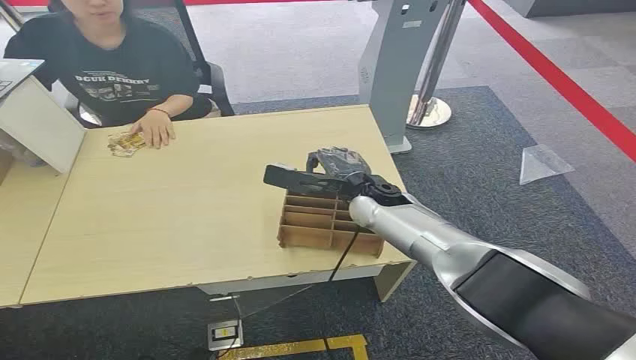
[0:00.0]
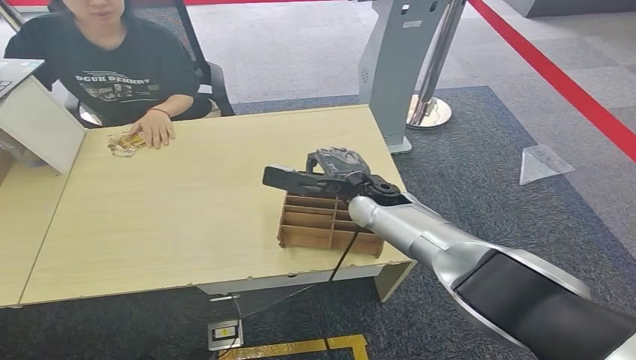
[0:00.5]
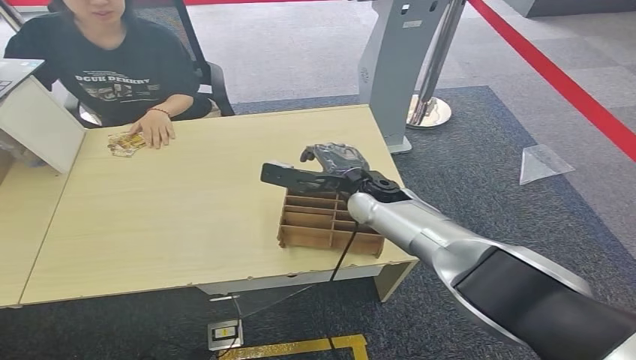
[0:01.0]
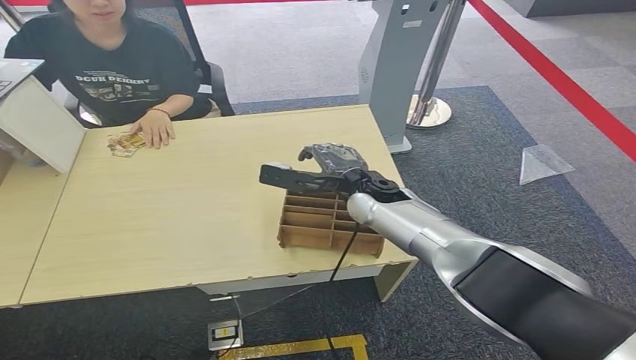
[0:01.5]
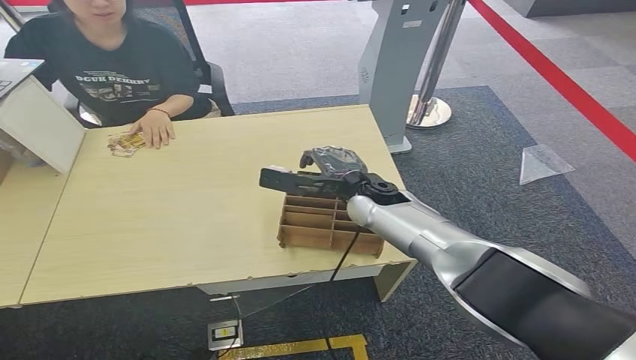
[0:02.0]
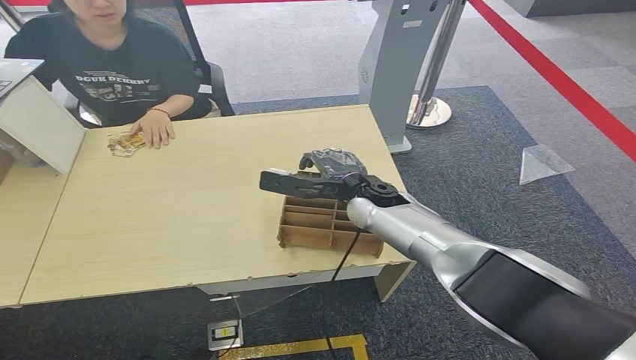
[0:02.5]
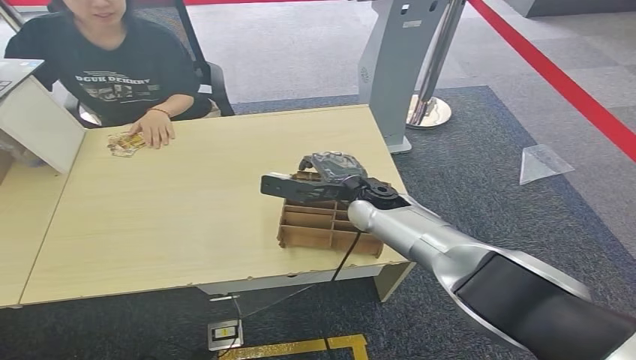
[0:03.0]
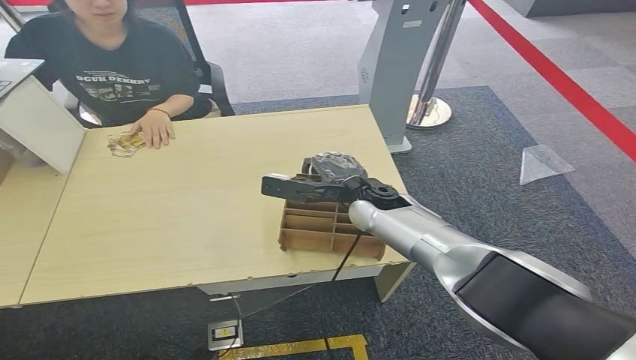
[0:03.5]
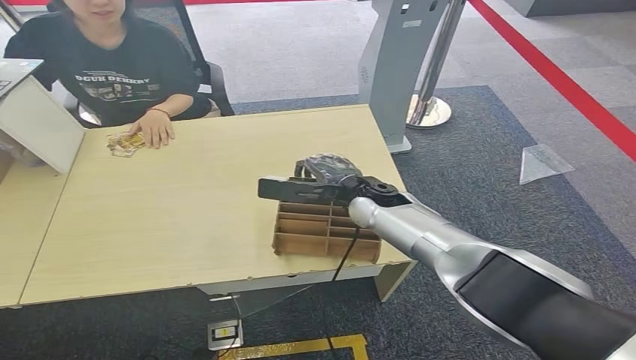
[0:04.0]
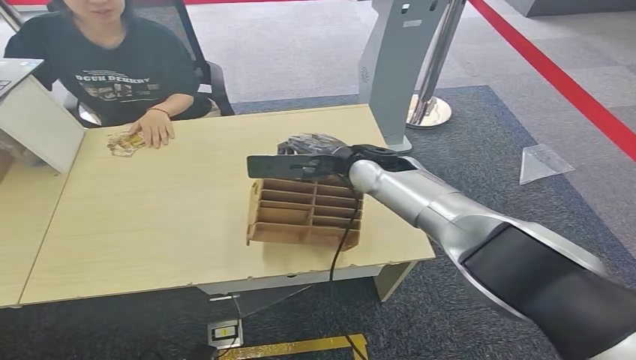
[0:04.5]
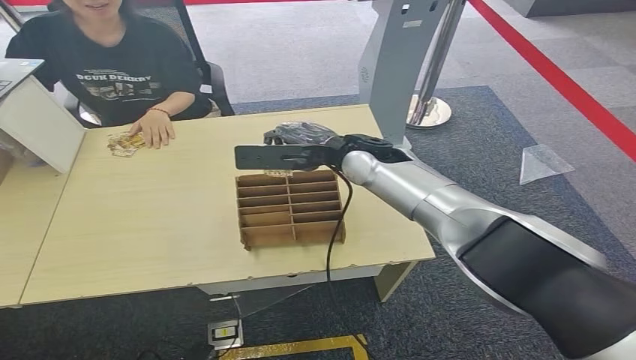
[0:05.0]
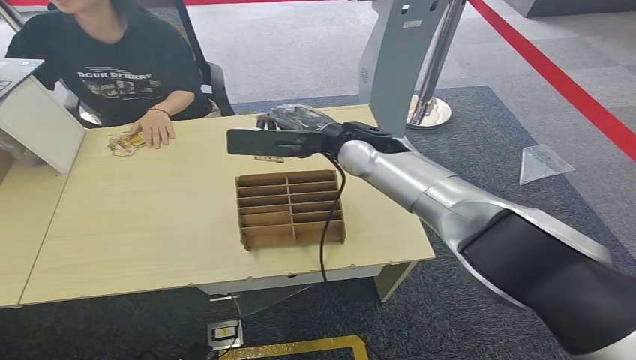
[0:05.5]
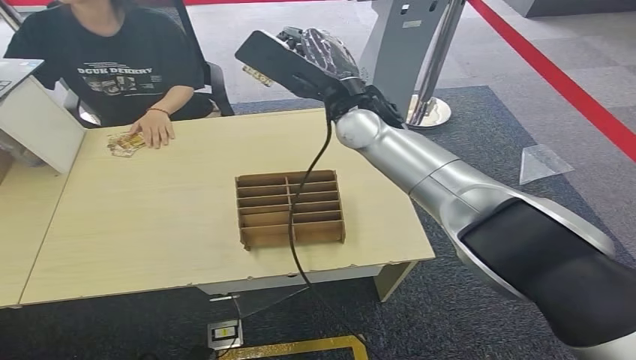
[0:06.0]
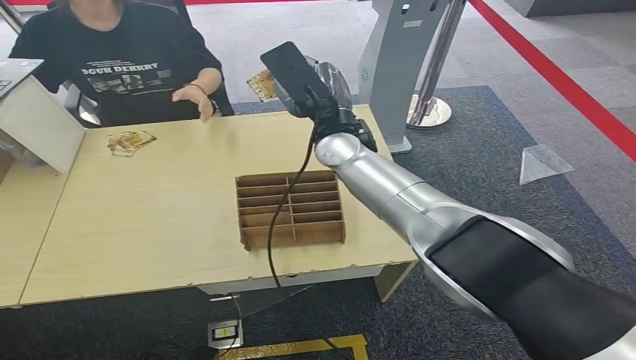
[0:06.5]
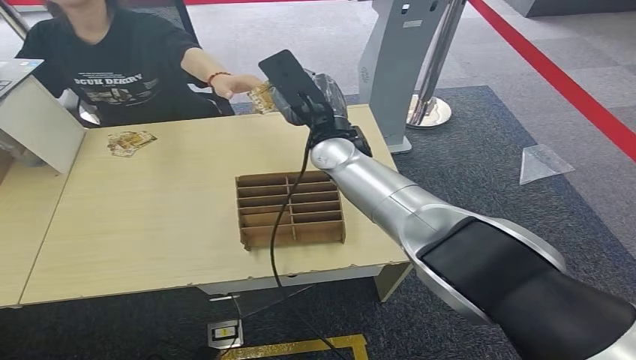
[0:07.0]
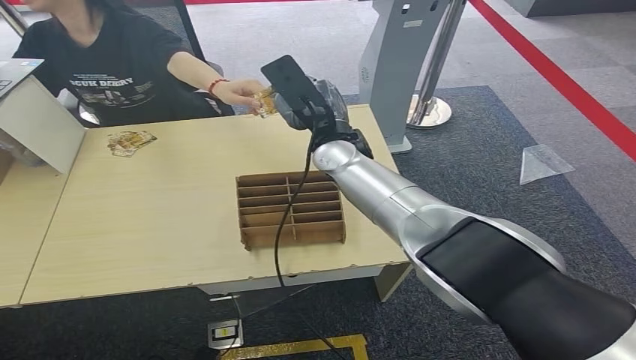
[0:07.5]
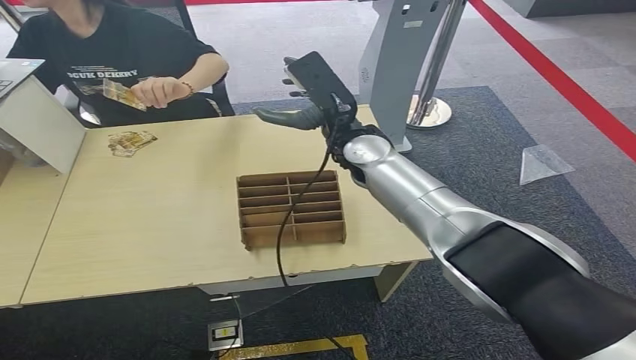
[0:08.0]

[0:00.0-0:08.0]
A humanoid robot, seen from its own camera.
Step, 0:00.0 to 0:04.5: Pick up the room card from the card holder.
Step, 0:05.0 to 0:08.0: Hand the room card to the target.
0:02.0 to 0:04.0: The hands make only small movements.
0:06.0 to 0:08.0: The right hand shifts about 10 cm to the right and backward.
